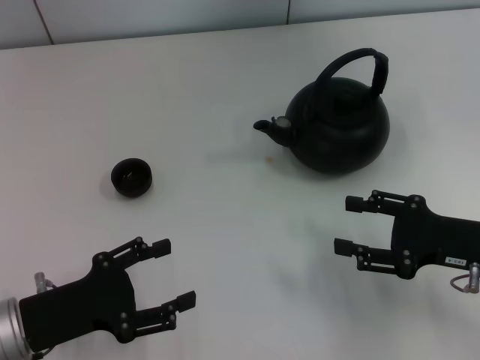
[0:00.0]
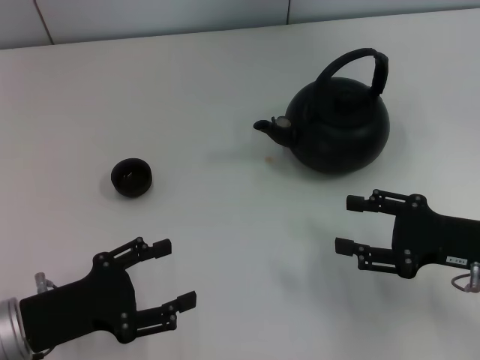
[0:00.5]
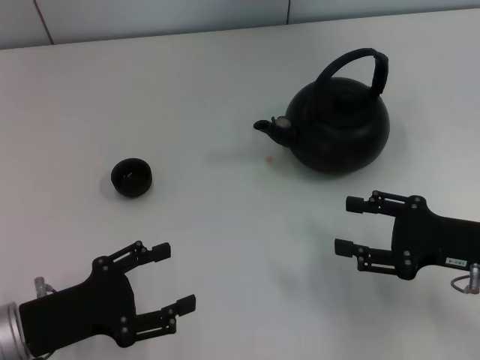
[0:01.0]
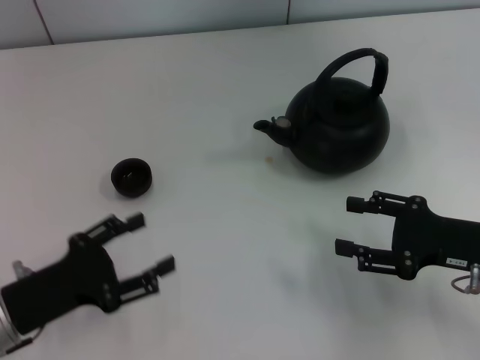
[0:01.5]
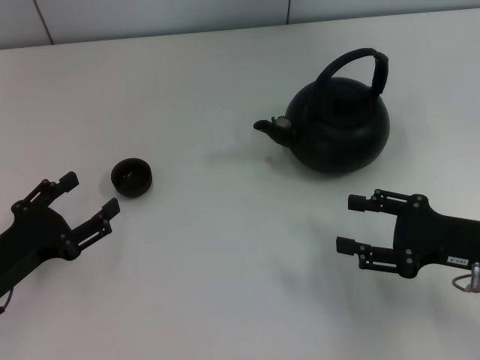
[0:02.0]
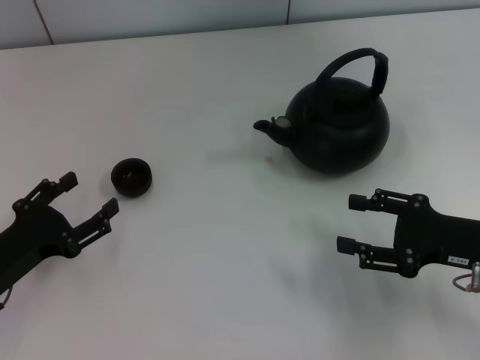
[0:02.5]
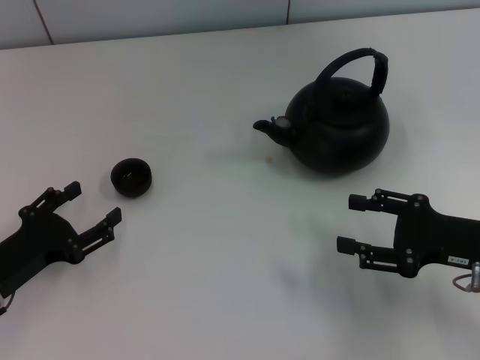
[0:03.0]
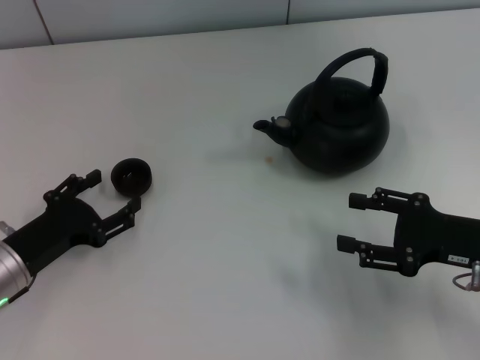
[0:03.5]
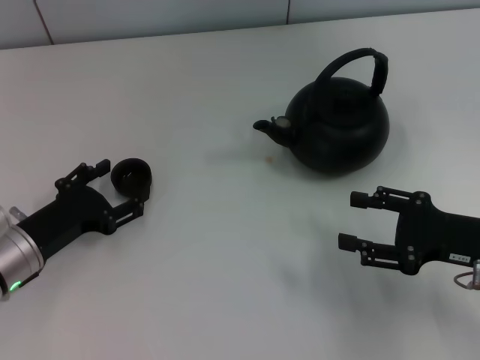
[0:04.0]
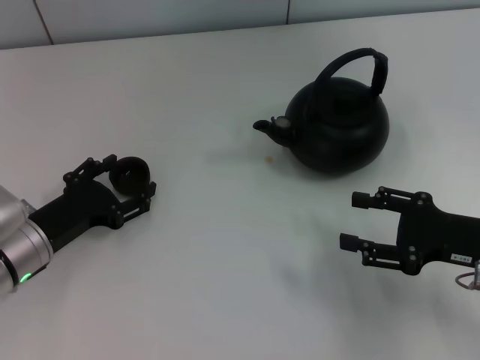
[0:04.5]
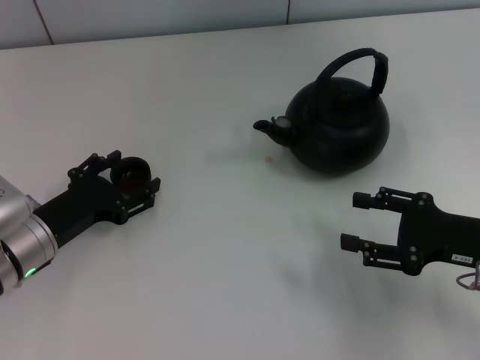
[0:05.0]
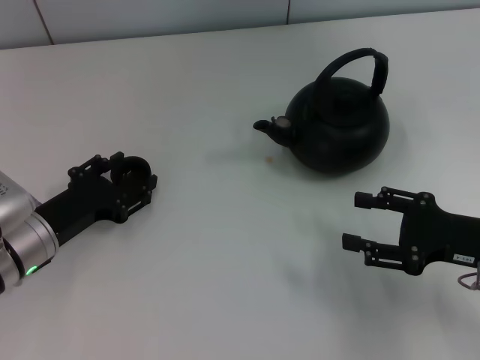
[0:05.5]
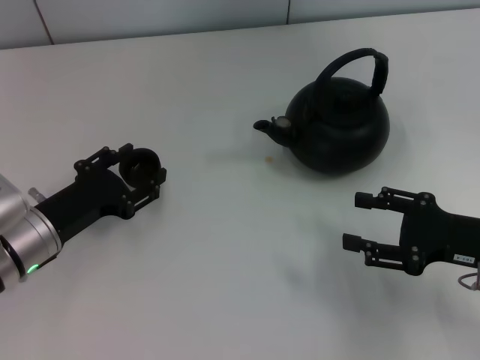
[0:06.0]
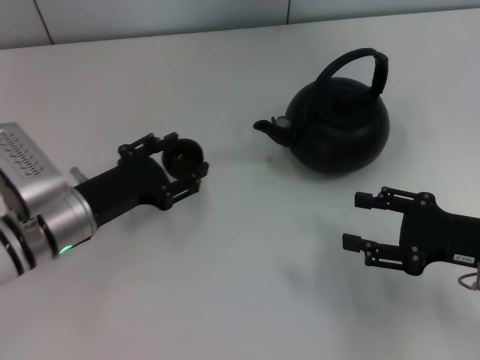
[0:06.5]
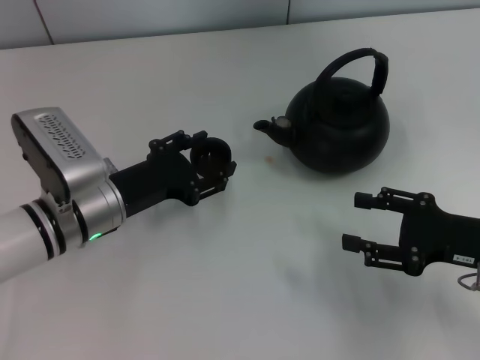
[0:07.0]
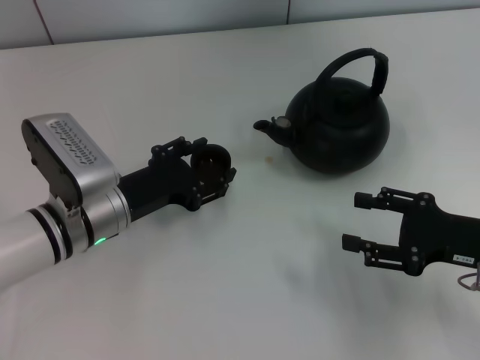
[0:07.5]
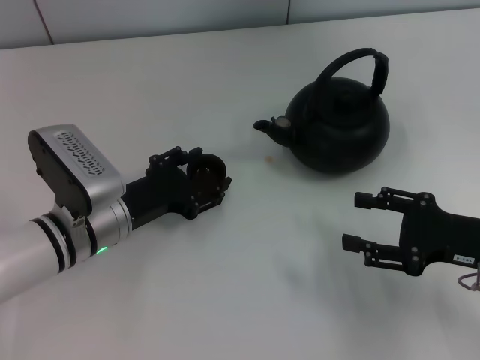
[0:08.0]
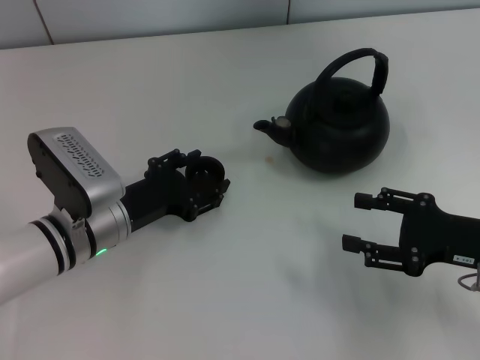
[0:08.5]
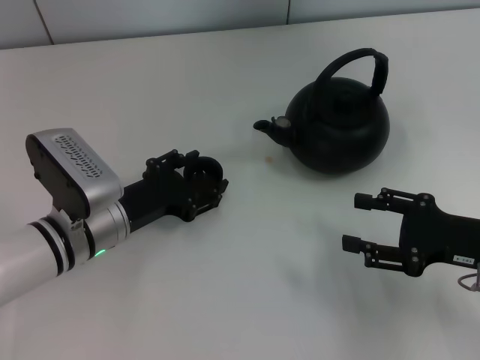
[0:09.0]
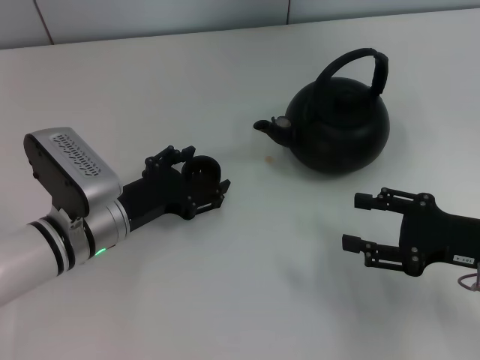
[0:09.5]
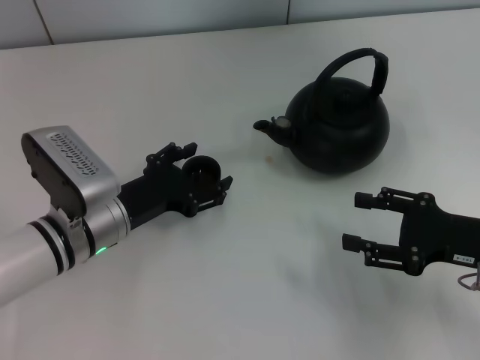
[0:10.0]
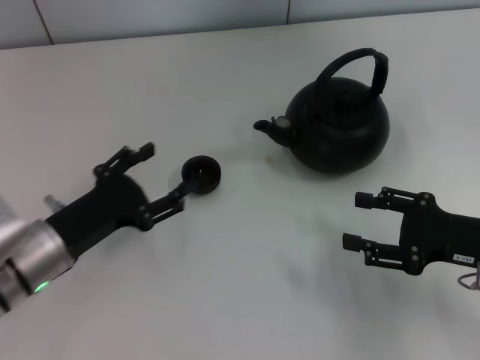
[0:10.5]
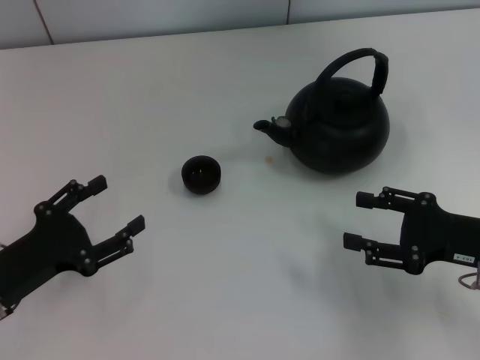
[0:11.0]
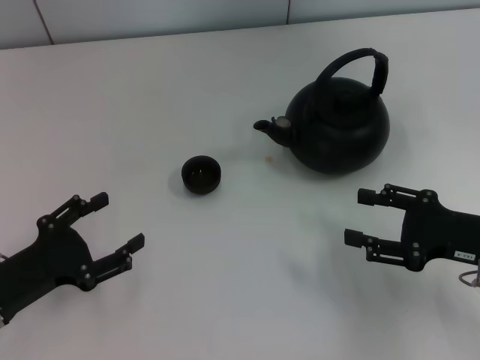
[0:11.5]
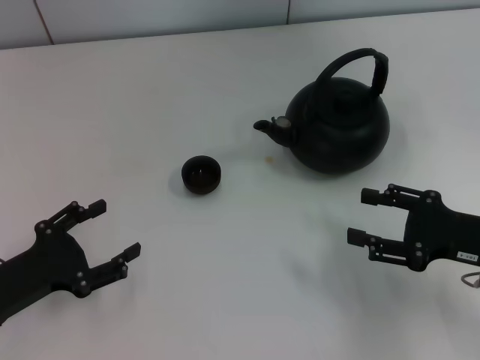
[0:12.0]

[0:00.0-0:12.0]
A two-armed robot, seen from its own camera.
Task of the whole recording: Grasp the handle of the teapot with one hand and pour tea into the teacup.
Step, 0:00.0 to 0:06.0: Pick up the teacup with the left gripper.
Step, 0:06.5 to 0:10.0: Place the teacup in the center of view with the left gripper.
0:02.0 to 0:04.0: The left gripper moves some 5 cm.
0:04.0 to 0:06.0: The left gripper closes its fingers.
0:06.0 to 0:08.0: The left gripper shifts roughly 5 cm to the right, and opens up.
0:08.0 to 0:10.0: The left gripper opens.
0:10.0 to 0:12.0: The left gripper travels to the left and backward by approximately 15 cm.

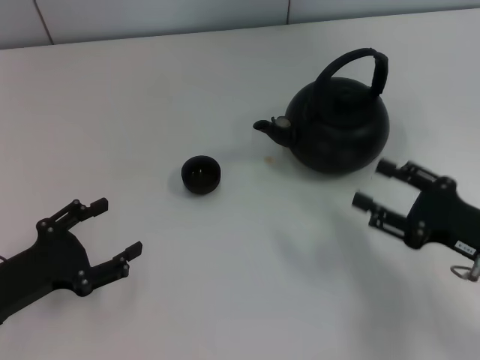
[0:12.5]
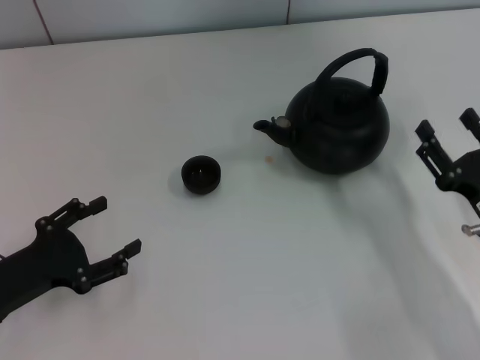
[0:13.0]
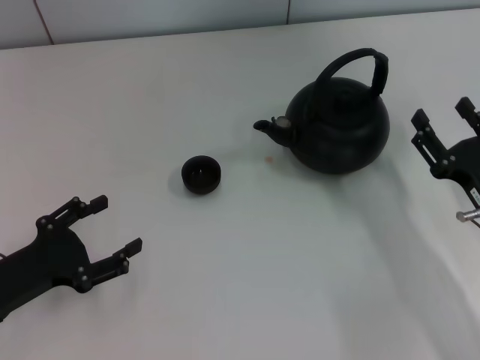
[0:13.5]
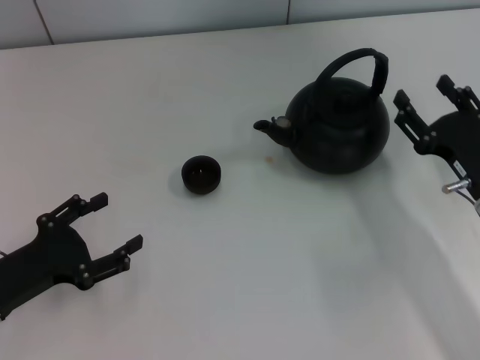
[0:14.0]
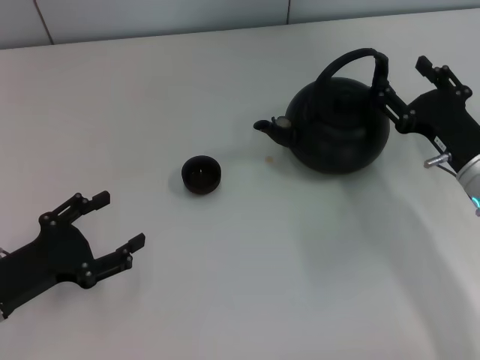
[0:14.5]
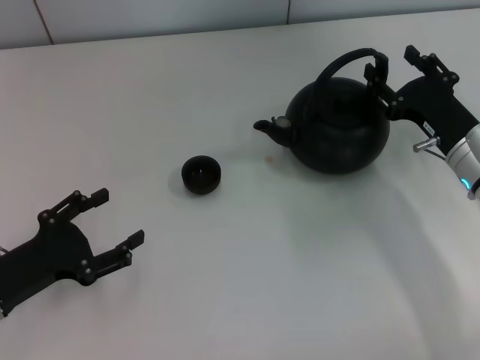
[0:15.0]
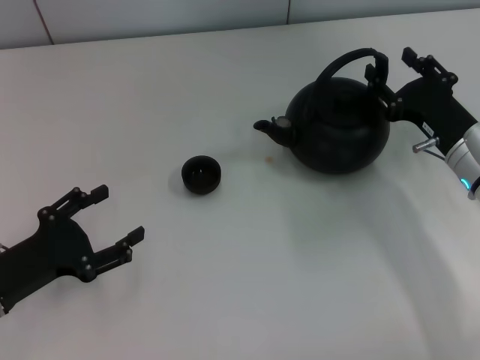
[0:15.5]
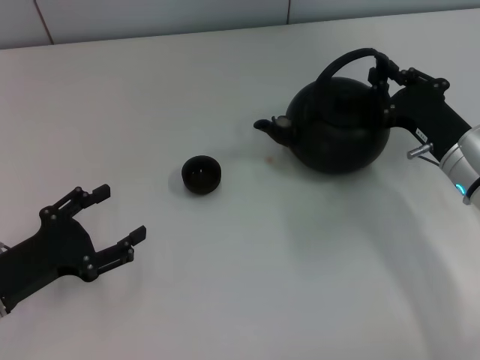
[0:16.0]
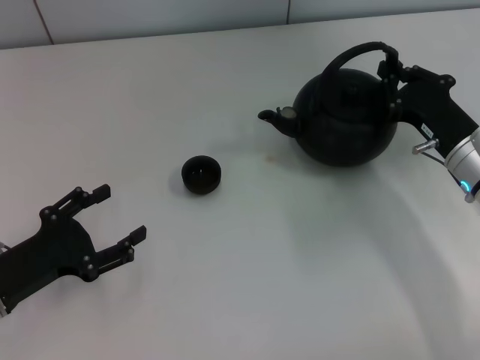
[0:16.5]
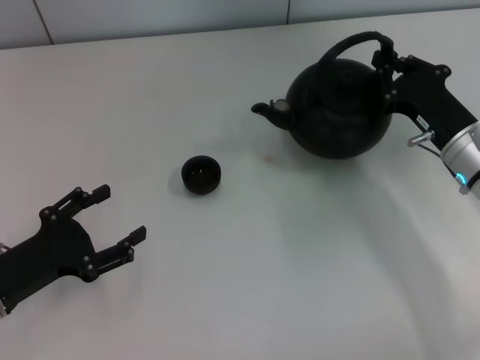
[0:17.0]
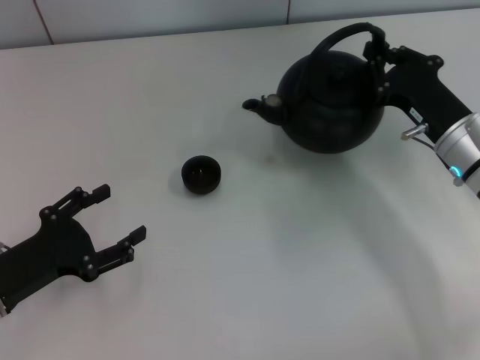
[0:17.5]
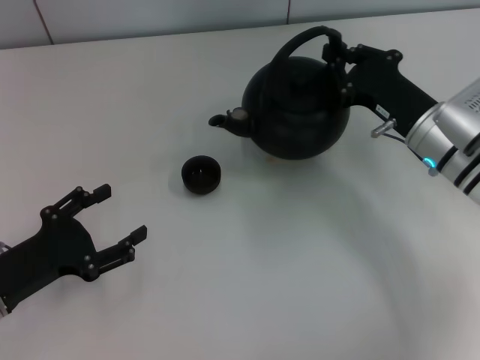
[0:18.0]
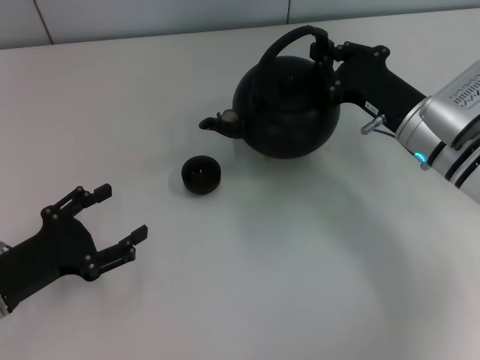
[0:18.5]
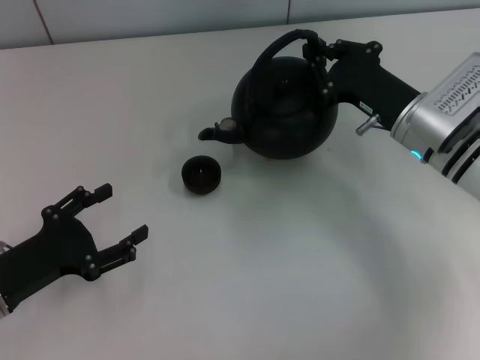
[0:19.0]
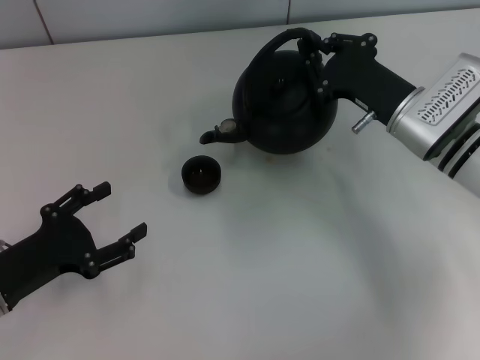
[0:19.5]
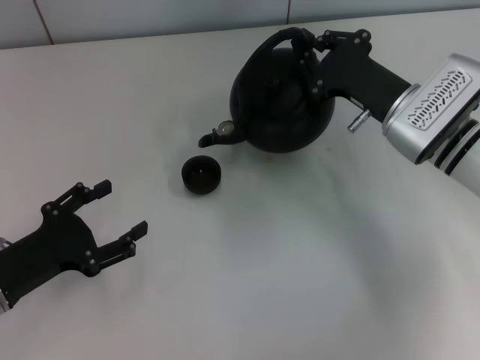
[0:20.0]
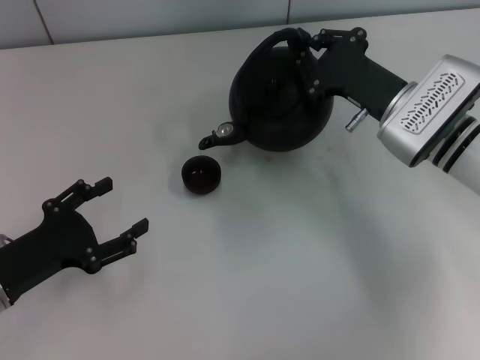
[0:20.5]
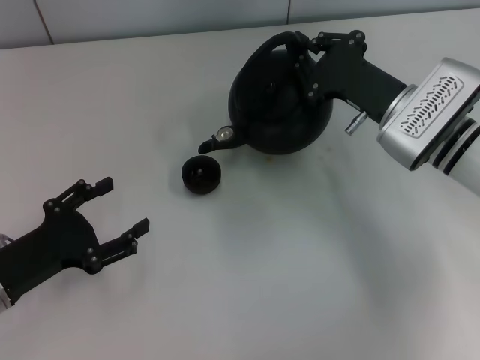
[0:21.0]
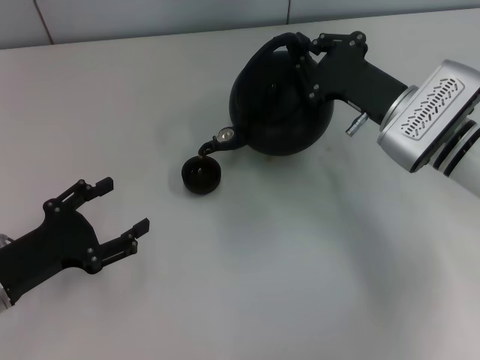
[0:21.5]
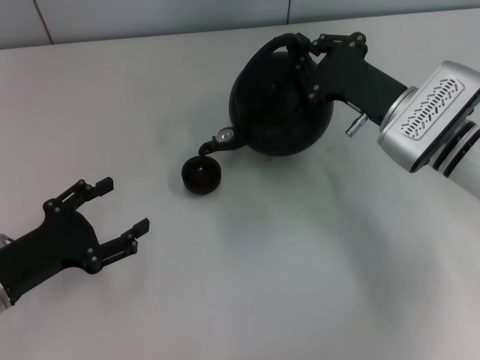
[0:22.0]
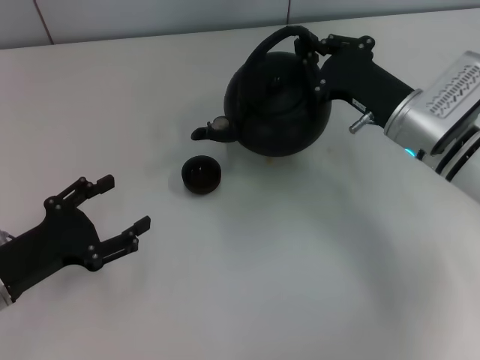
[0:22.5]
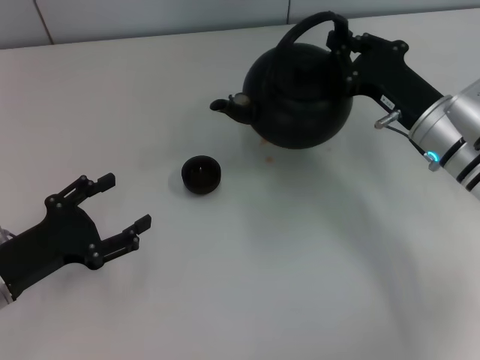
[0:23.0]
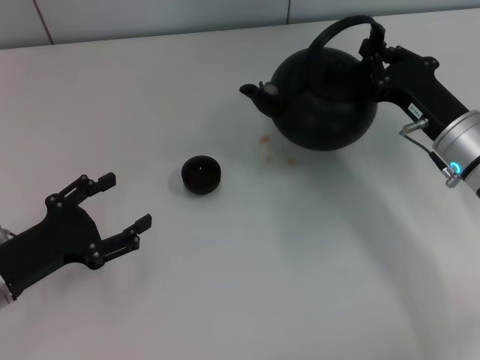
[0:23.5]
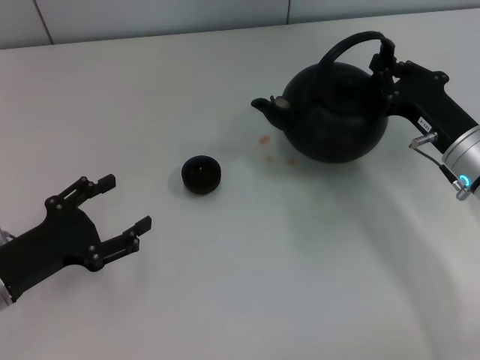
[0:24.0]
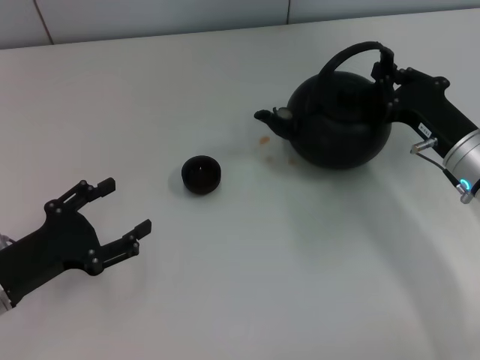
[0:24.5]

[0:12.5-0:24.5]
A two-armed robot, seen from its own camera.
Task of the whole recording: Grasp the handle of the teapot with one hand and pour tea into the teacup.
Step, 0:12.5 to 0:17.5: Pick up the teapot with the right gripper.
0:12.5 to 0:14.5: The right gripper is displaced forward by some 10 cm.
0:14.5 to 0:16.5: The right gripper closes its fingers.
0:16.5 to 0:18.5: The right gripper changes place by about 5 cm.
0:20.5 to 0:22.5: The grippers stay close to where they were, moving slightly.
0:22.5 to 0:24.5: The right gripper travels to the right by some 5 cm.

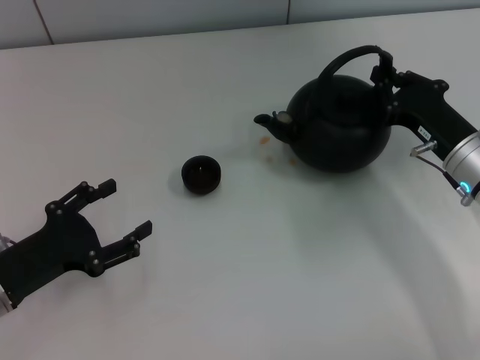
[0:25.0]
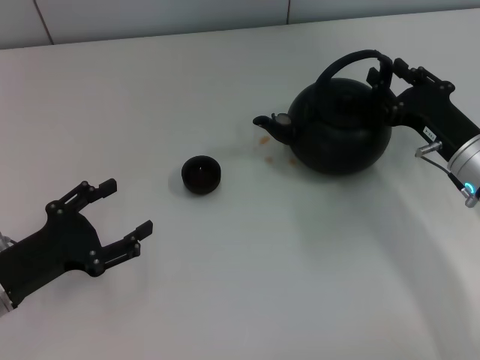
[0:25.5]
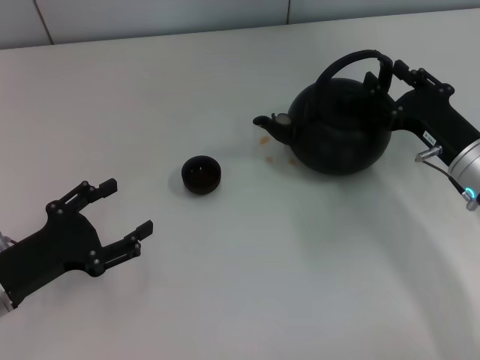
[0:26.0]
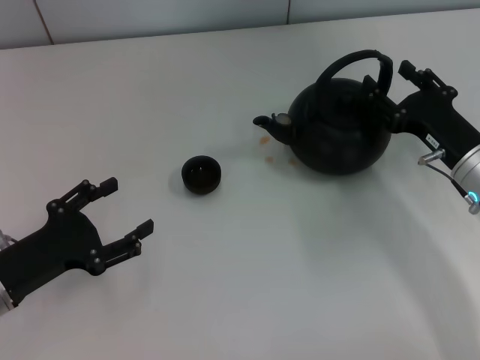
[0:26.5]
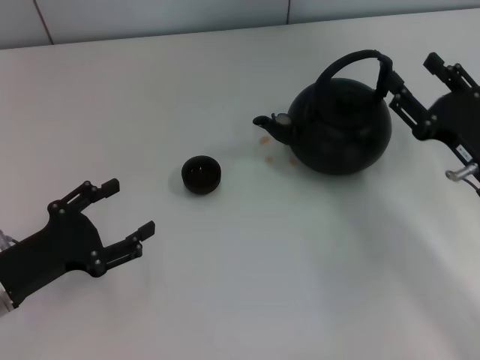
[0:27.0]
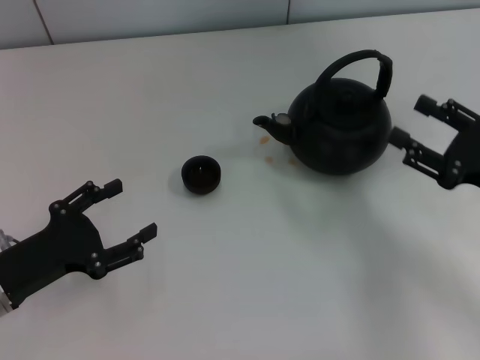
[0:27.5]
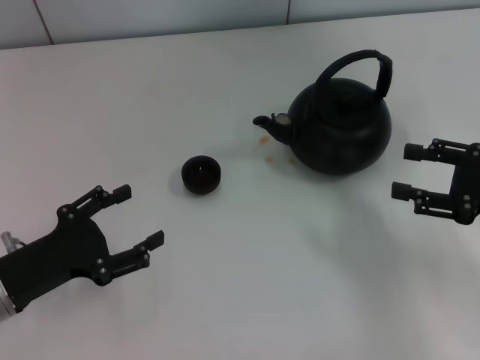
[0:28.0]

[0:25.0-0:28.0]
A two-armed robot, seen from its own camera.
Task of the whole recording: Grasp the handle of the teapot with one hand and pour tea into the teacup.
Step, 0:25.0 to 0:27.0: Put down the teapot with the right gripper.
0:25.0 to 0:26.5: The right gripper opens its fingers.
0:26.5 to 0:28.0: The right gripper is displaced to the right by approximately 10 cm.
